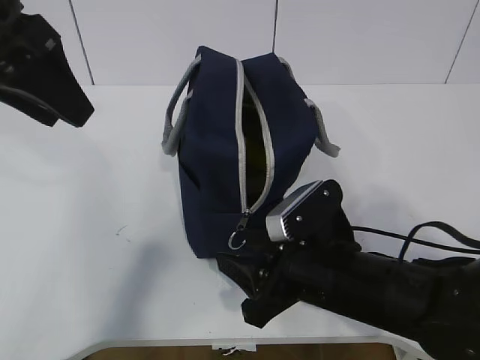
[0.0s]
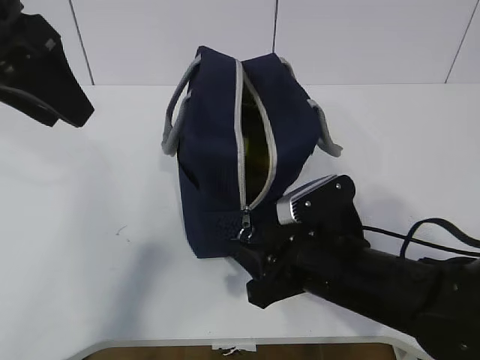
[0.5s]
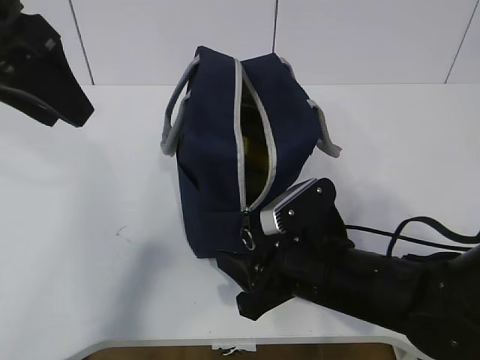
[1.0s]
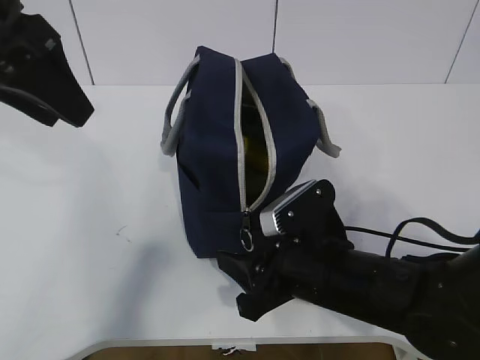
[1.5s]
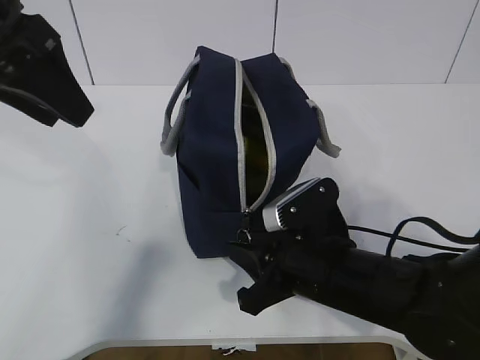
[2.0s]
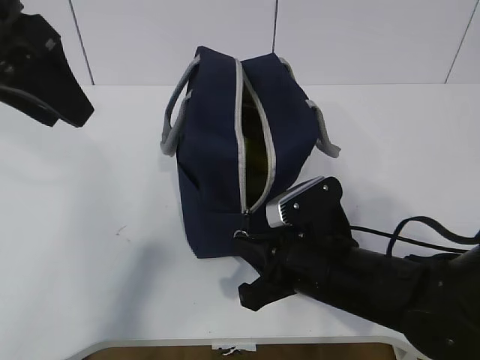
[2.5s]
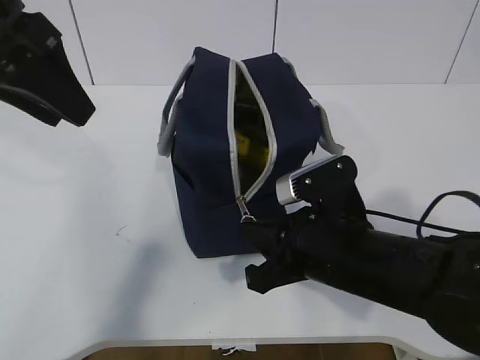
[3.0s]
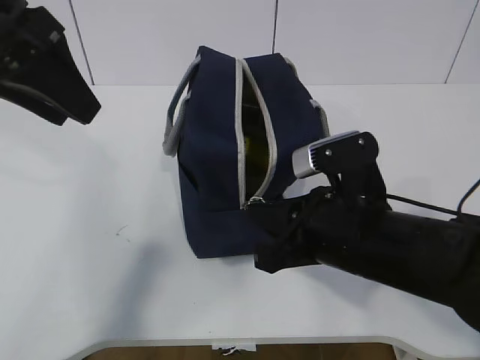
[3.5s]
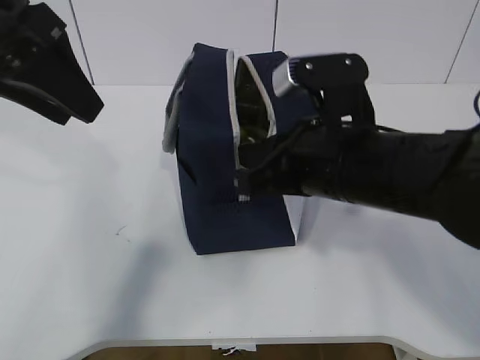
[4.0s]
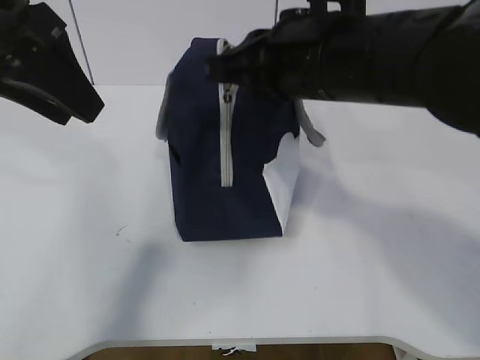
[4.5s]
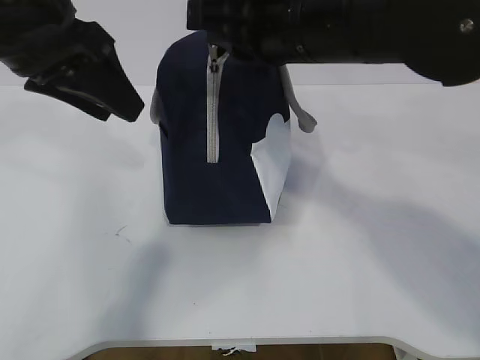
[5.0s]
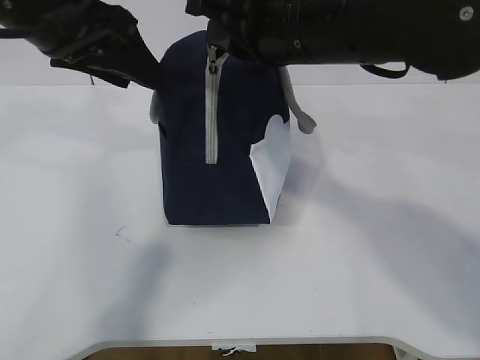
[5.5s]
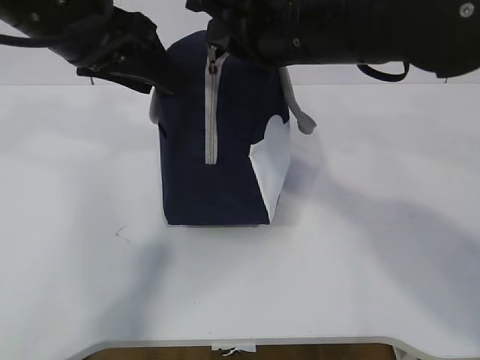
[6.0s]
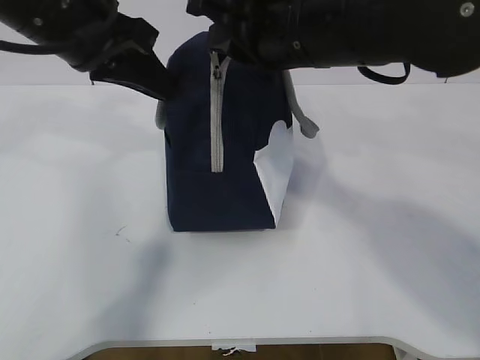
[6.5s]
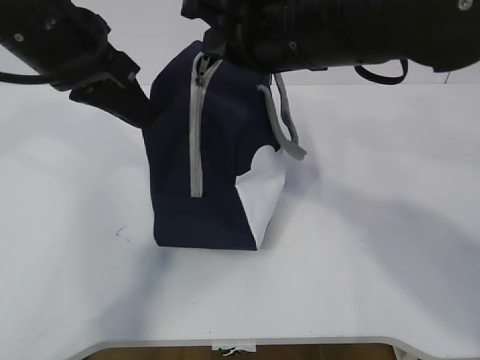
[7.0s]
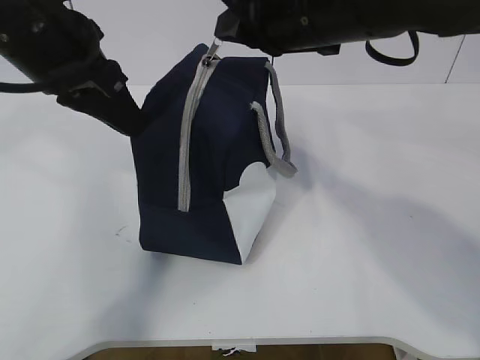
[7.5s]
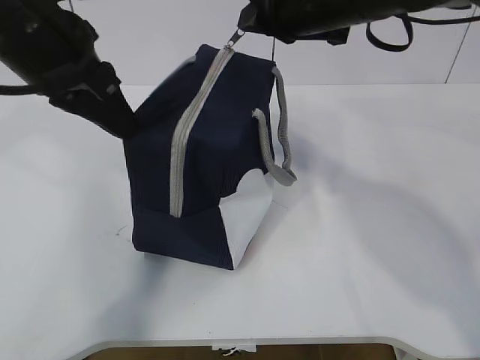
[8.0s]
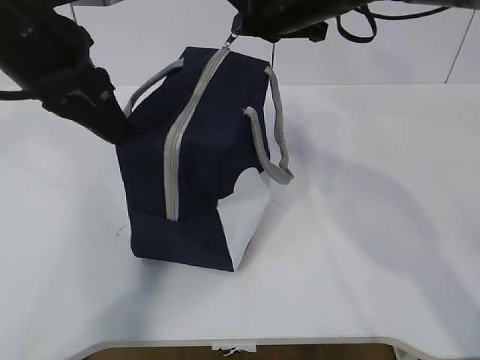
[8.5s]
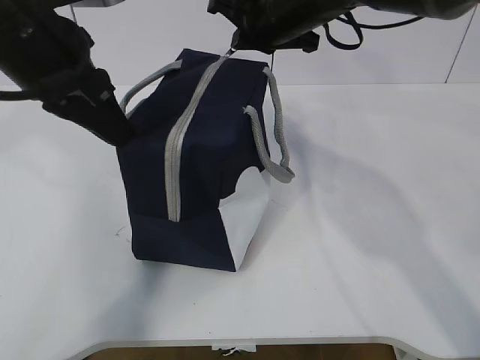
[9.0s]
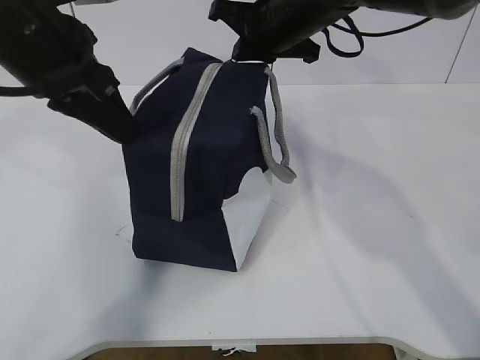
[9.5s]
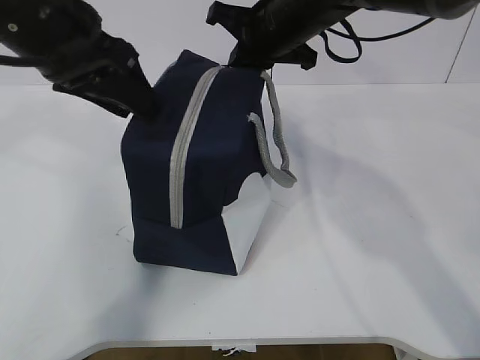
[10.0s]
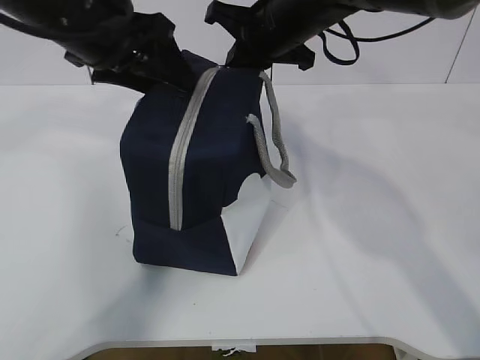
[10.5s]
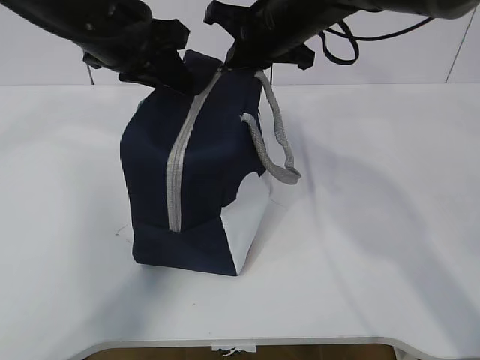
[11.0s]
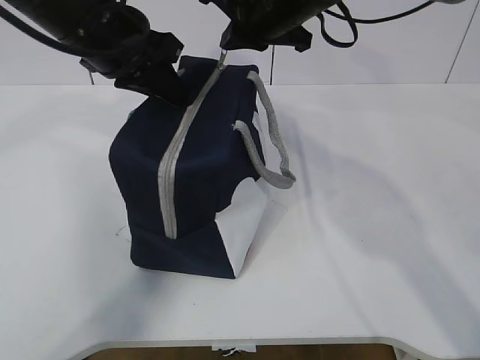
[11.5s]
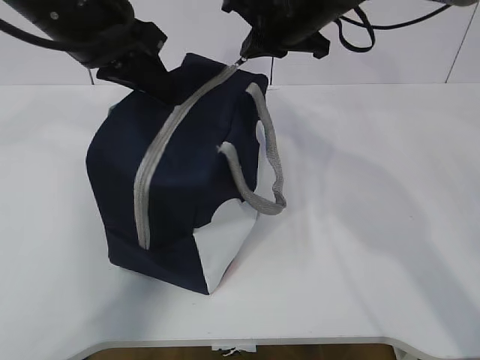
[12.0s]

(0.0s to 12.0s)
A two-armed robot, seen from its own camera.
Step, 2.0s - 5.0s: Pull the zipper with your right hand.
Step, 5.5s - 6.0s: Grab the lunch bag with your left hand.
0.0s - 2.0s: The right gripper closes.
2.0s - 4.0s: The right gripper moves upward, roughly 10 cm.
4.0s - 6.0s: The right gripper moves upward, about 10 cm. The left gripper moves some 5 cm.
6.0s - 8.0s: The left gripper closes its fingers, while the right gripper travels forward by roughly 5 cm.
8.0s - 10.0s: The left gripper opens up, while the right gripper is displaced forward by about 5 cm.
10.0s - 12.0s: The left gripper closes its fingers.

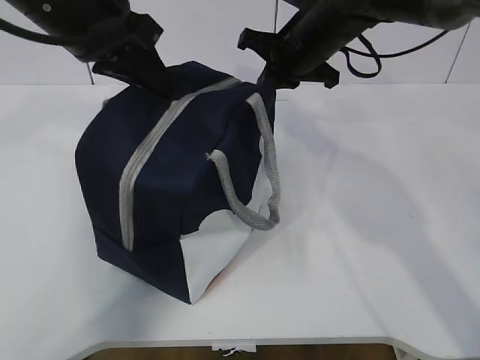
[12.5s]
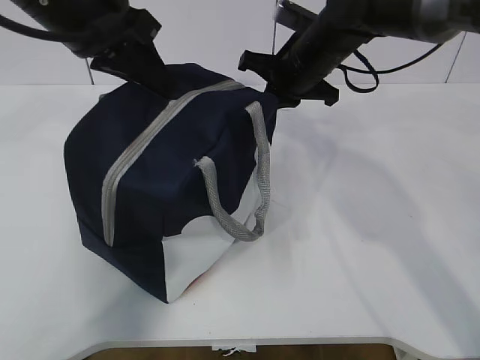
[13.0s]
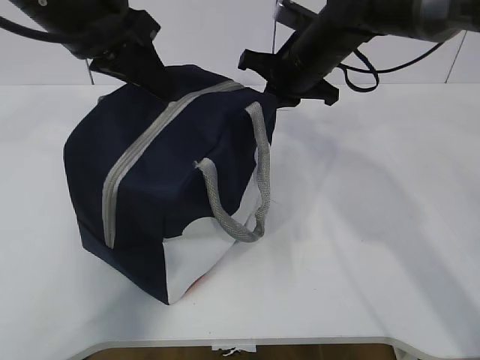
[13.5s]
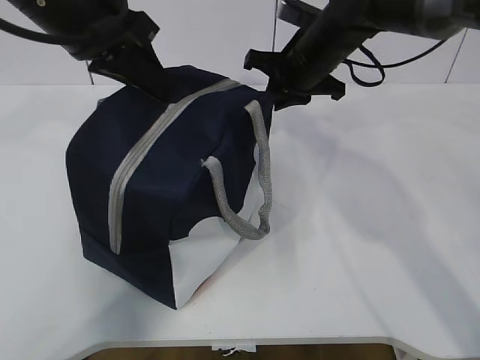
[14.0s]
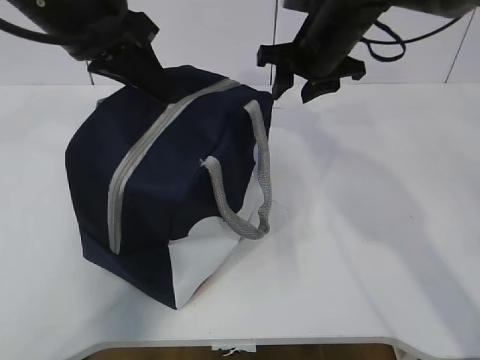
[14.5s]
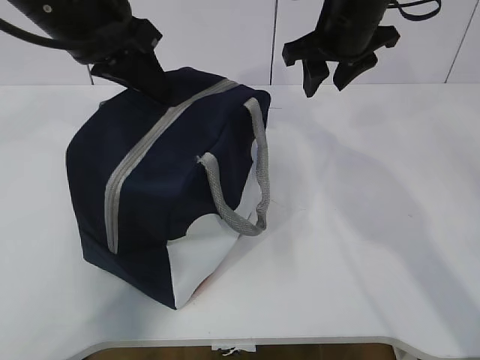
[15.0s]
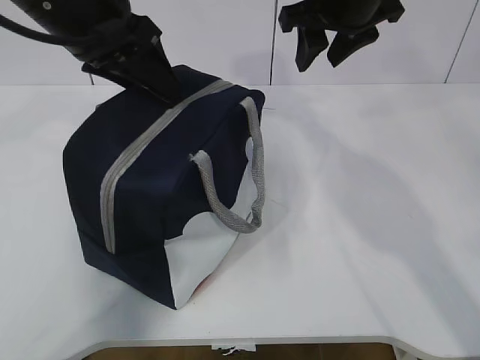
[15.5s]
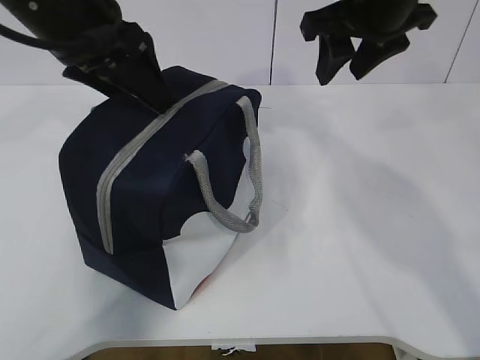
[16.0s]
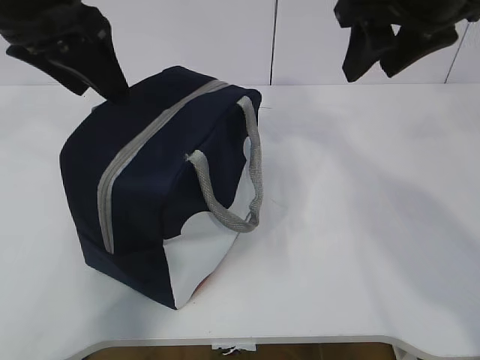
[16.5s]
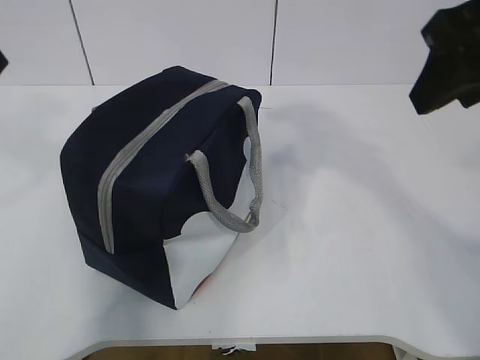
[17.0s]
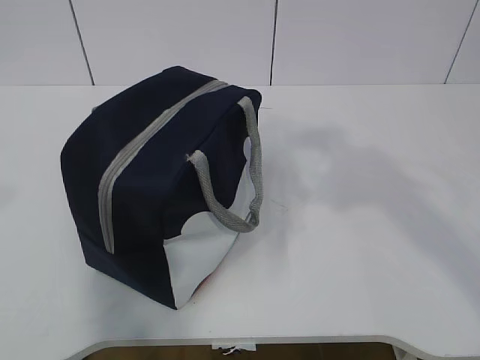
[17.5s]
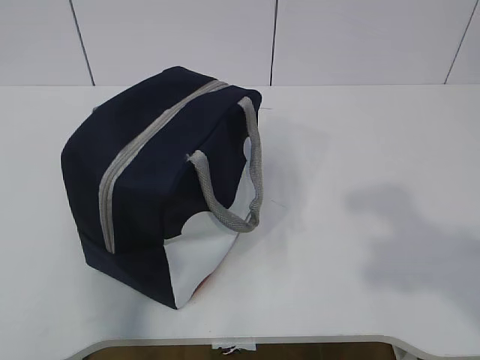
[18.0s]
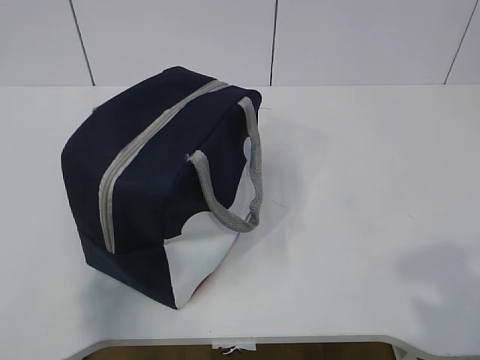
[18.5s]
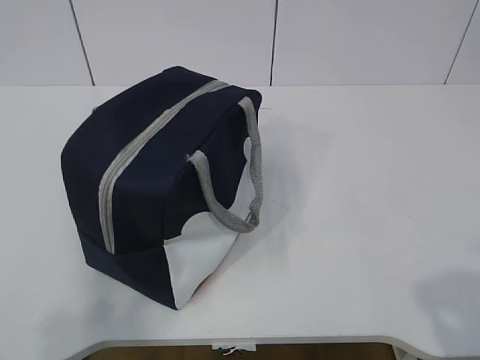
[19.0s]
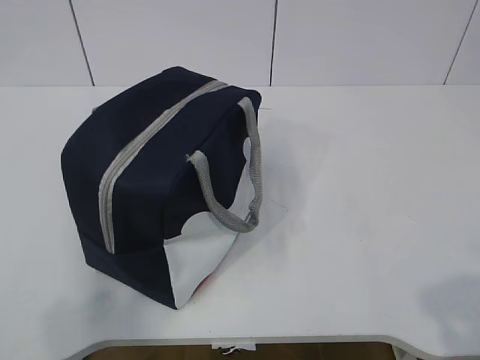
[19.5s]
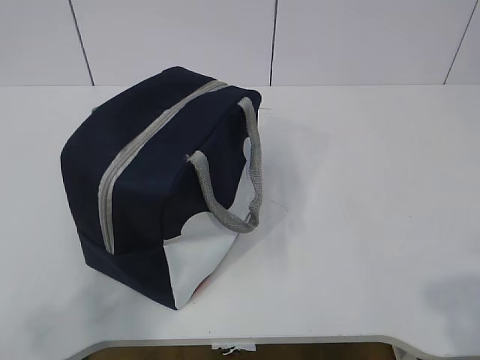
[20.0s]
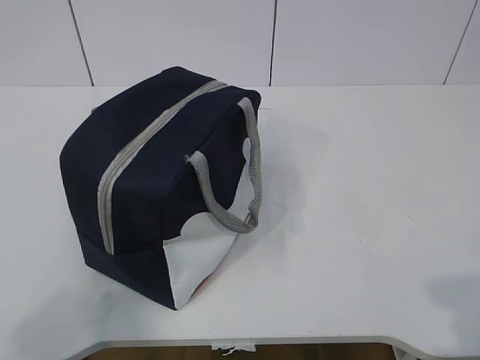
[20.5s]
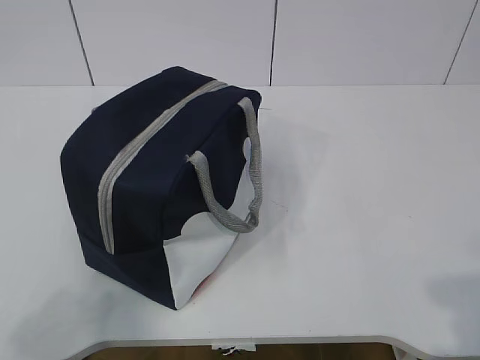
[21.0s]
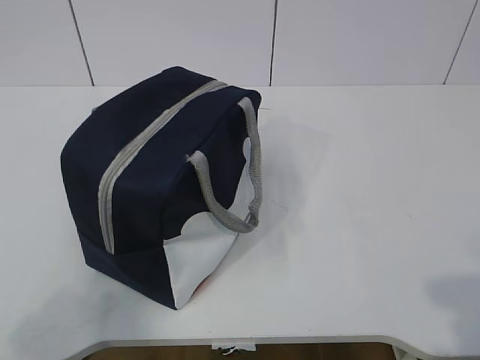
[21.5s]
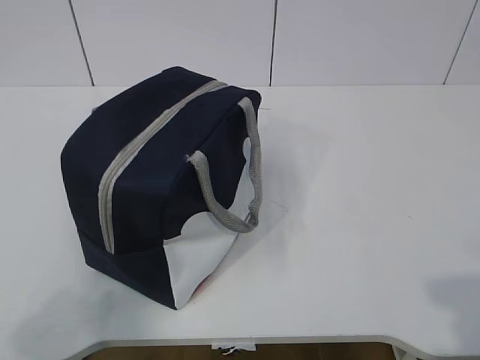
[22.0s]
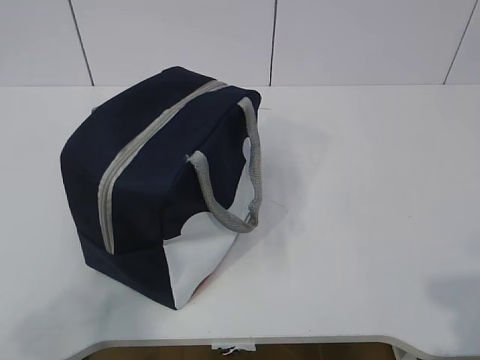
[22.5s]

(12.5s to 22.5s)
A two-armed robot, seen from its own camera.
12.5s - 14.5s: The right gripper opens its fingers.
14.5s - 16.5s: The right gripper goes some 15 cm backward and upward. The left gripper opens.
16.5s - 18.5s: The right gripper goes roughly 35 cm backward. Meanwhile the left gripper heads backward and to the left, covering about 35 cm.
18.5s - 20.5s: The right gripper goes roughly 5 cm downward. Meanwhile the left gripper changes place by roughly 5 cm.
20.5s - 22.5s: The two grippers keep their place.

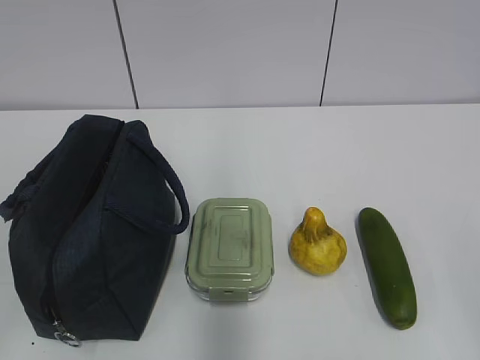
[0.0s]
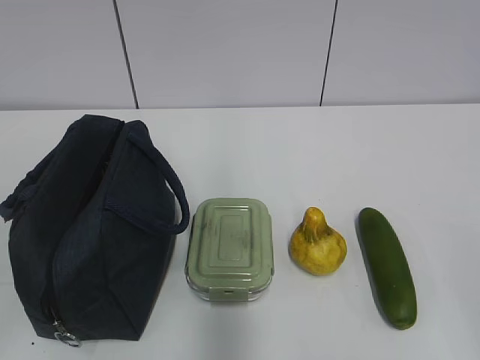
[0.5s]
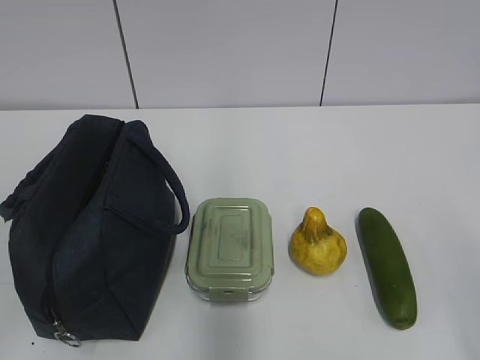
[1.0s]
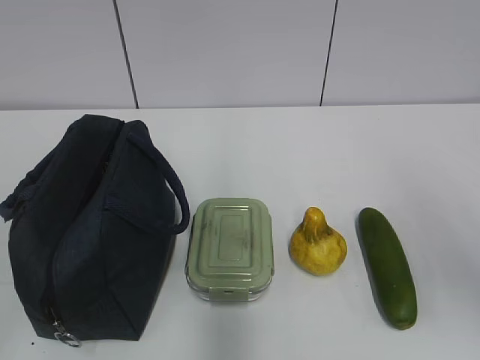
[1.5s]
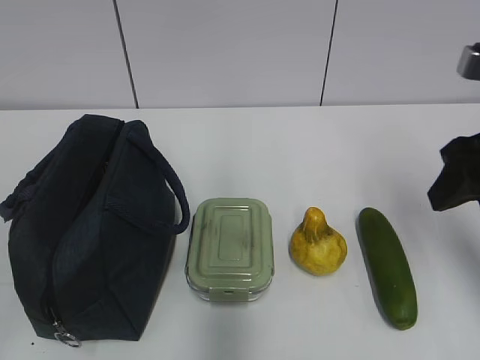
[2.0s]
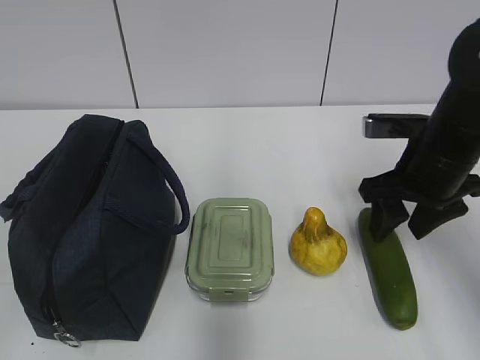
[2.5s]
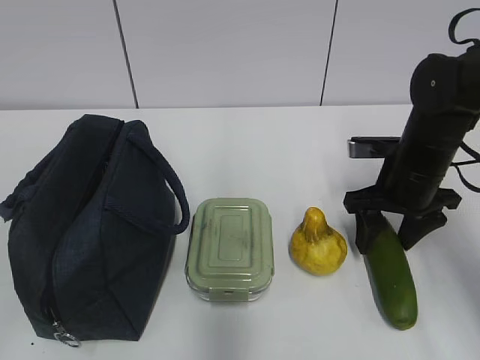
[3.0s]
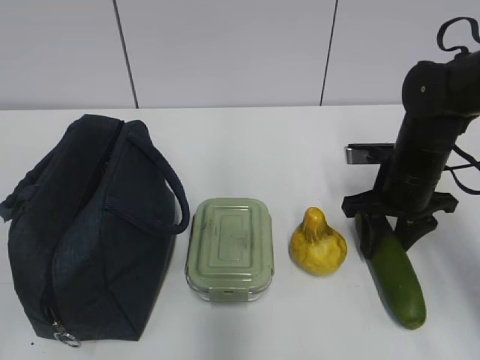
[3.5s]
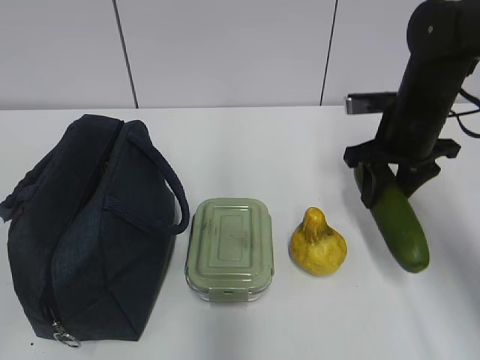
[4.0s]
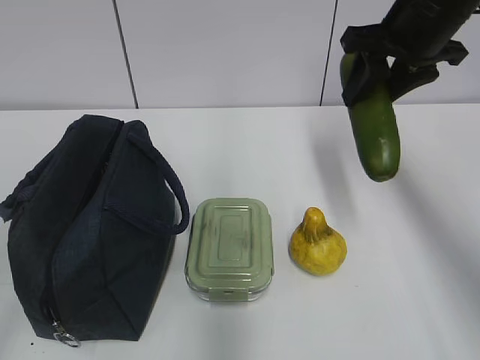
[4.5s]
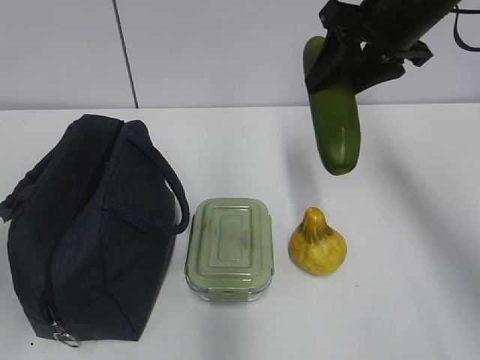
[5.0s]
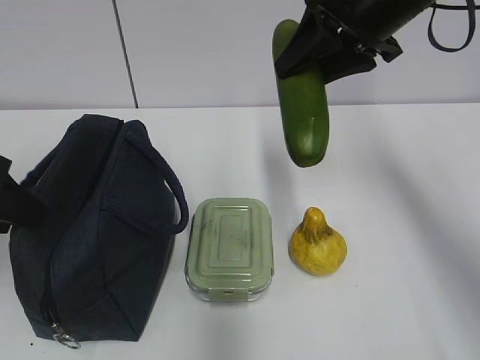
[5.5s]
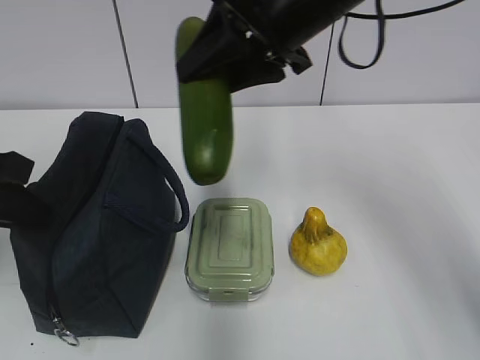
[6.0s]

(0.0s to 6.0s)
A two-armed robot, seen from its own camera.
Step, 0.0s - 3.0s: Grab the cucumber with your right hand.
2.0s - 4.0s: The right gripper is displaced forward and downward by about 15 cm.
4.0s - 6.0s: The right gripper travels to the left and upward by roughly 20 cm, while the left gripper heads forward, covering about 25 cm, and closes.
